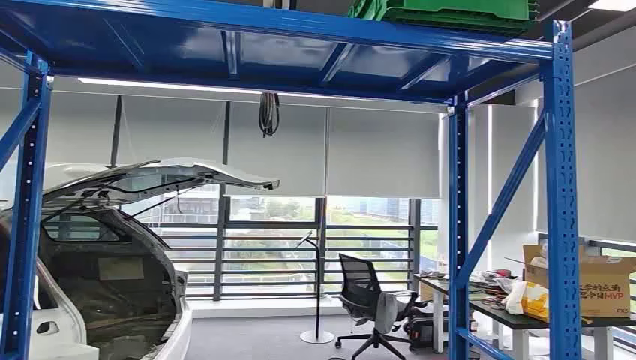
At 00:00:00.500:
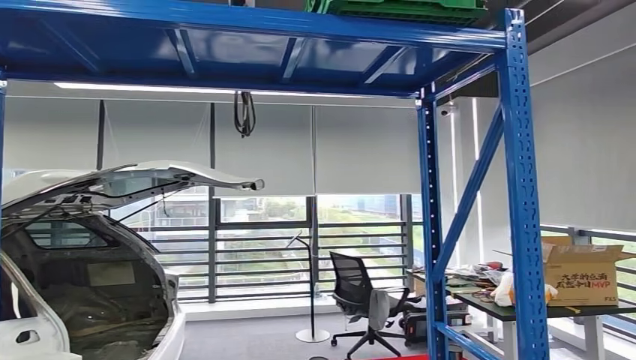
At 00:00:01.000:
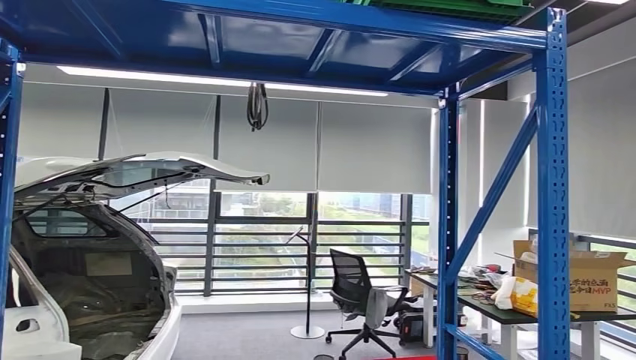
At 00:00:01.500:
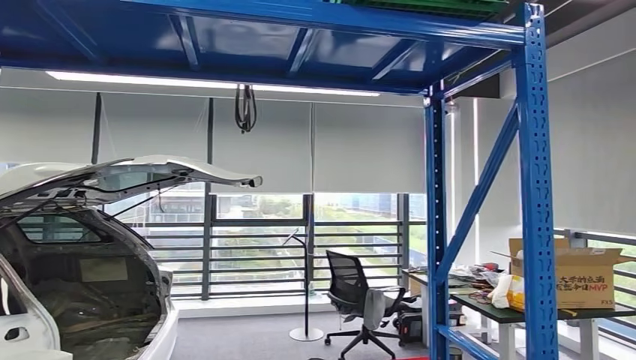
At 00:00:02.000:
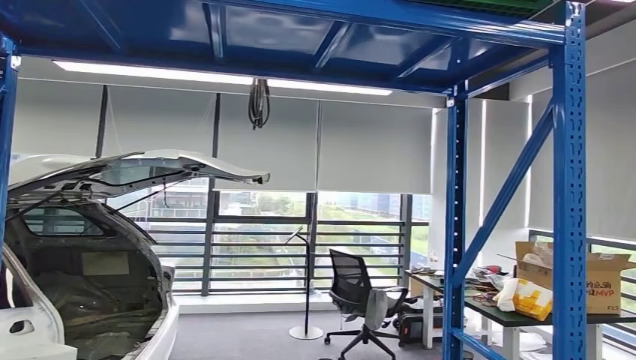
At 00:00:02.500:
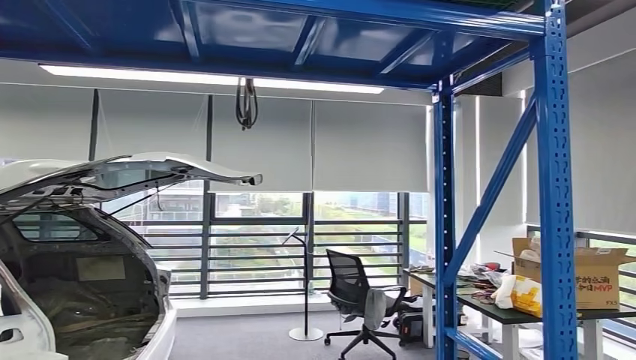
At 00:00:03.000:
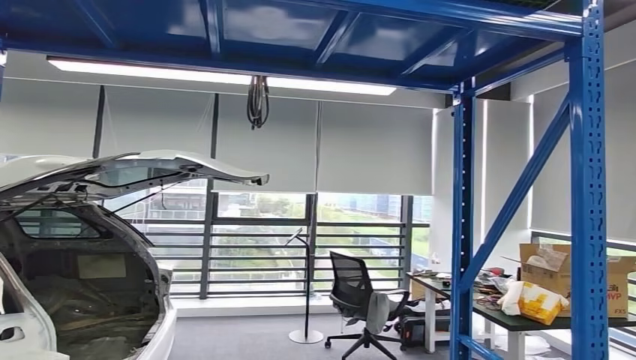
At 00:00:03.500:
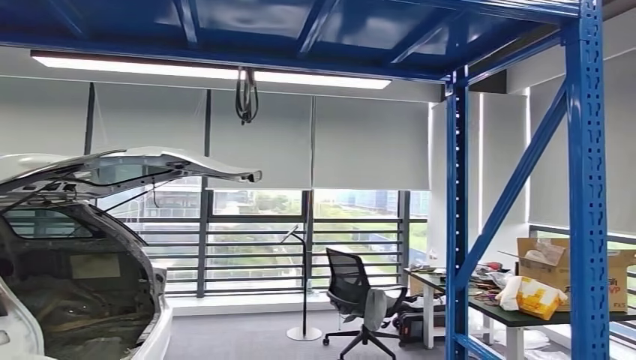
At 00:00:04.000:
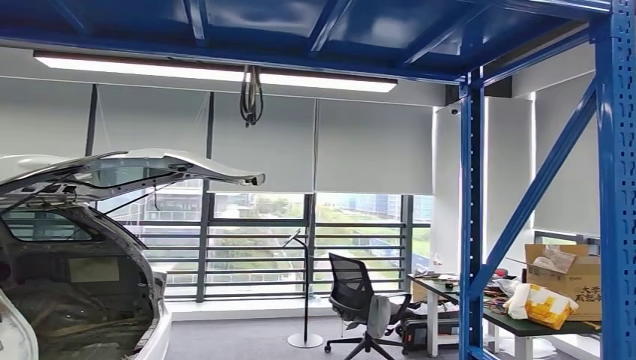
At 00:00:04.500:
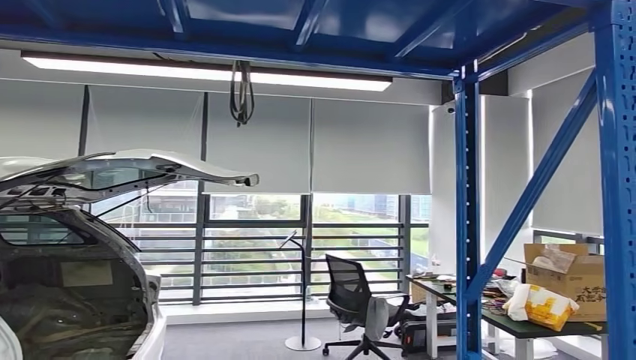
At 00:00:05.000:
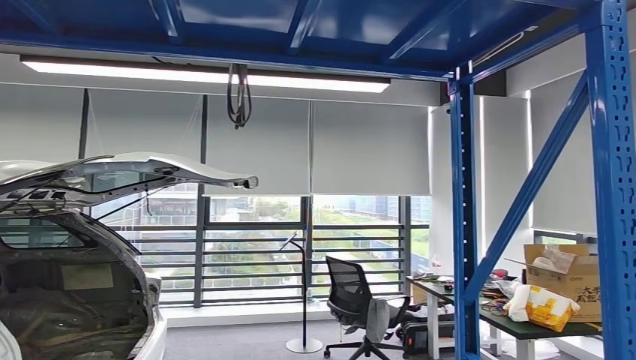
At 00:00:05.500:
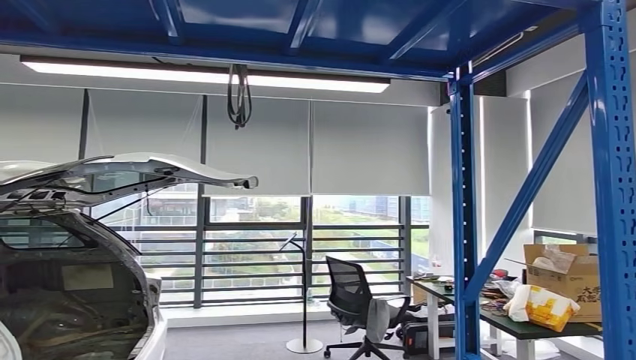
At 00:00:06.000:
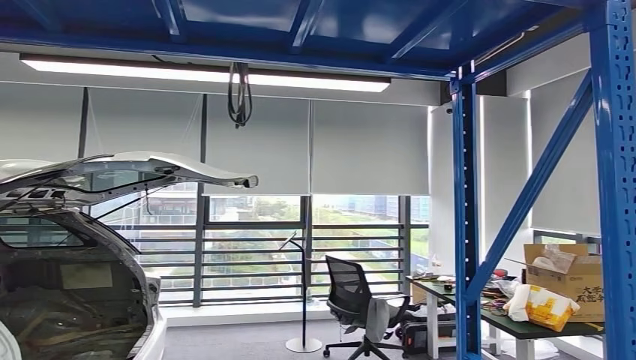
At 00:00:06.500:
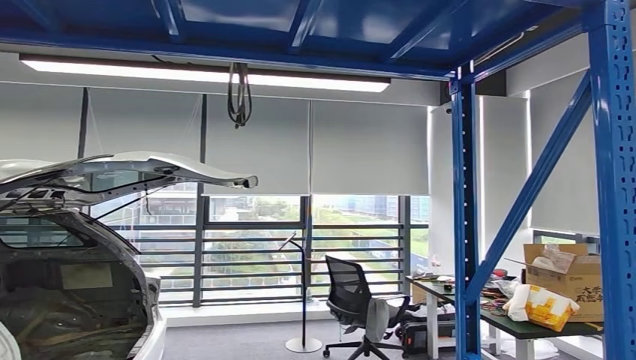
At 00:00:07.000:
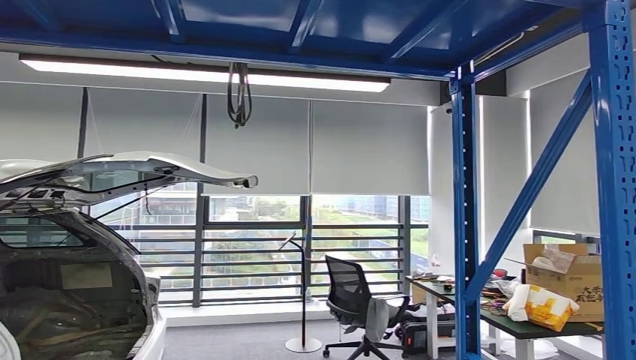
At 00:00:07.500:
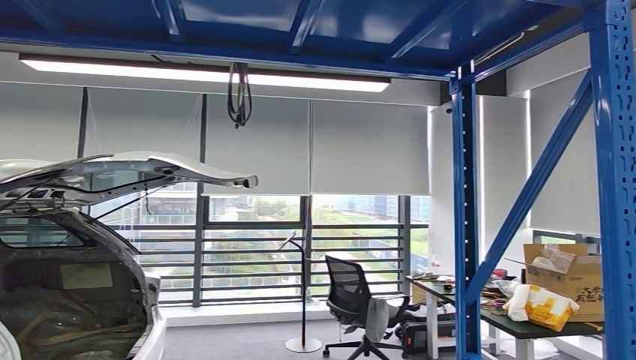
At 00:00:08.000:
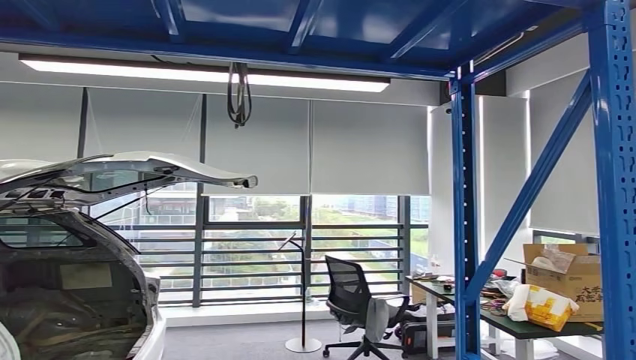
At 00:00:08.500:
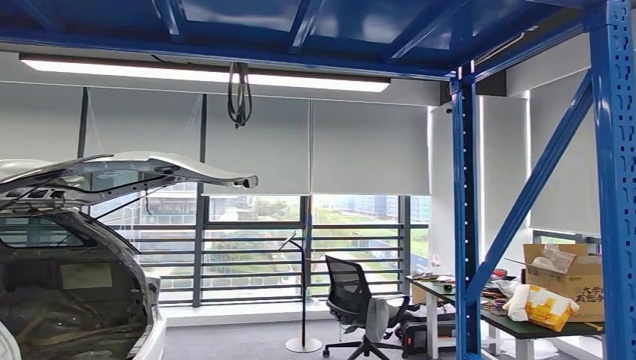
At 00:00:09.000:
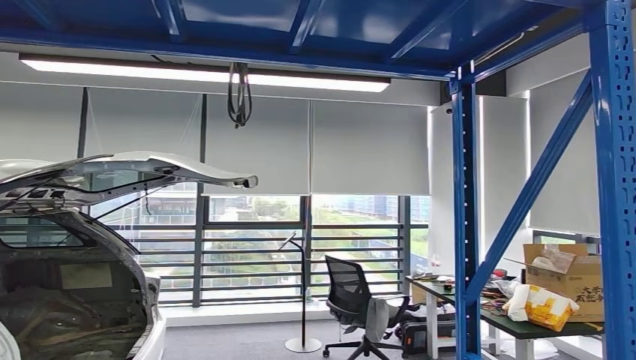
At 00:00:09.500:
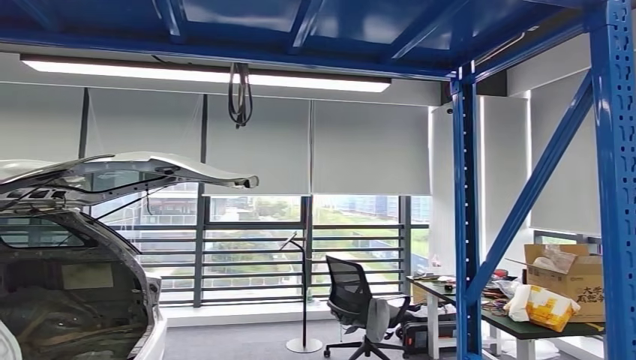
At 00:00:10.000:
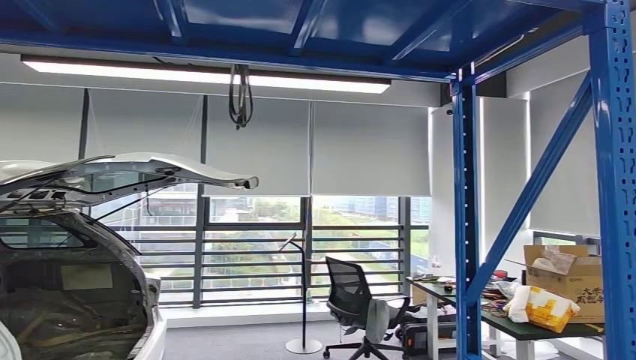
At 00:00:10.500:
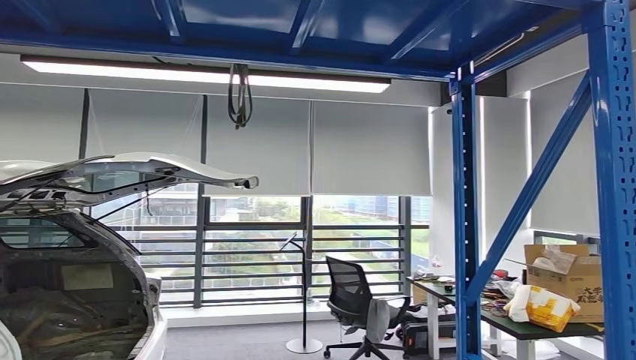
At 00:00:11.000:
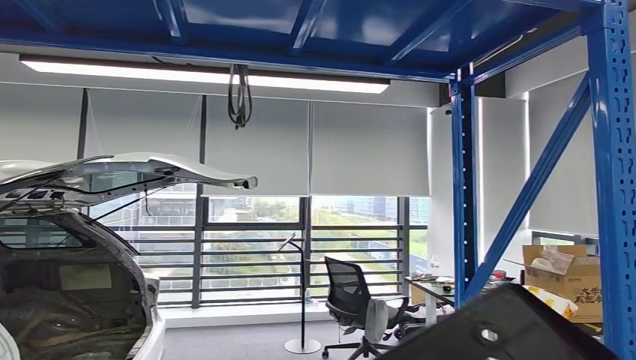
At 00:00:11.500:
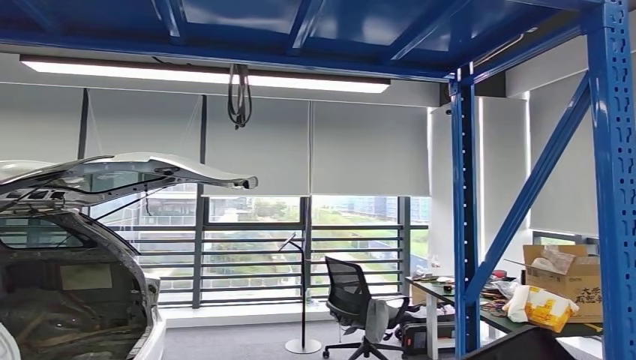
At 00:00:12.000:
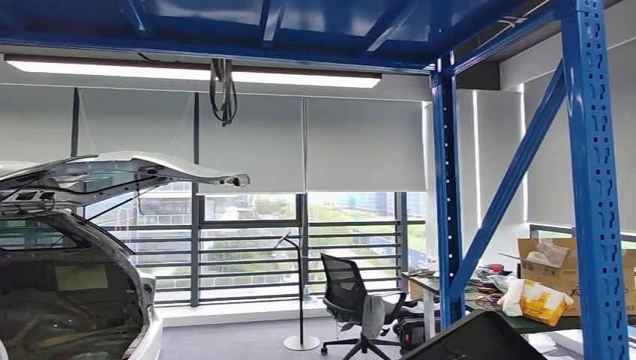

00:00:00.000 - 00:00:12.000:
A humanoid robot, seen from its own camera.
Step, 00:00:00.000 - 00:00:11.500: Pick up the small component from the shelf.
00:00:06.000 - 00:00:08.000: The right hand goes roughly 5 cm to the left.
00:00:08.000 - 00:00:10.000: There are only small adjustments of the hands.

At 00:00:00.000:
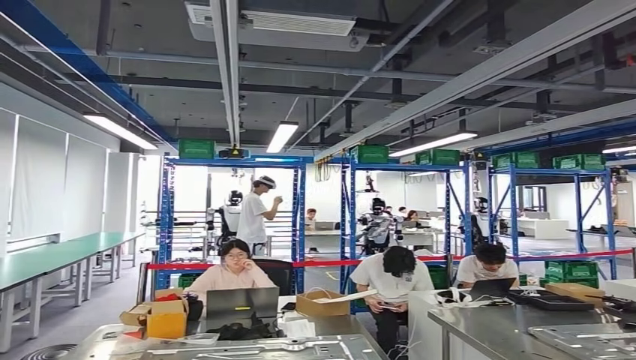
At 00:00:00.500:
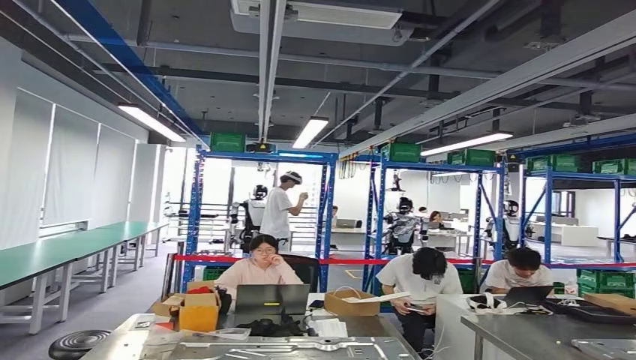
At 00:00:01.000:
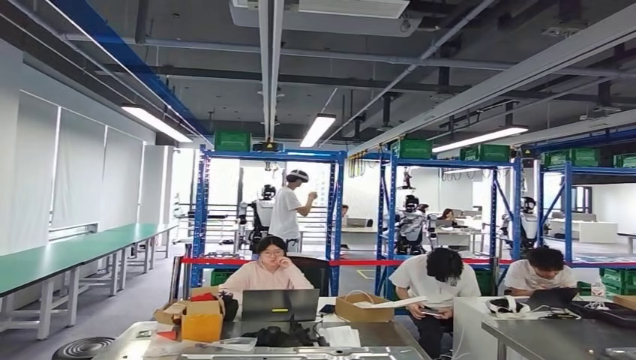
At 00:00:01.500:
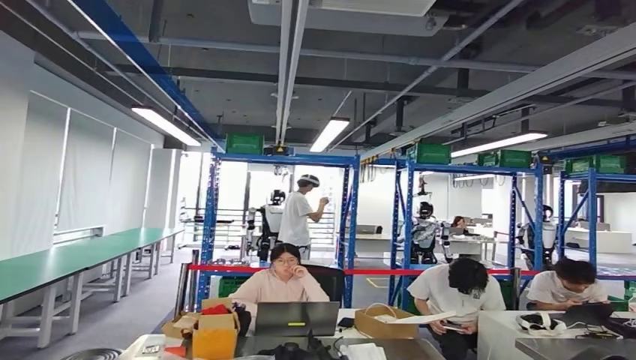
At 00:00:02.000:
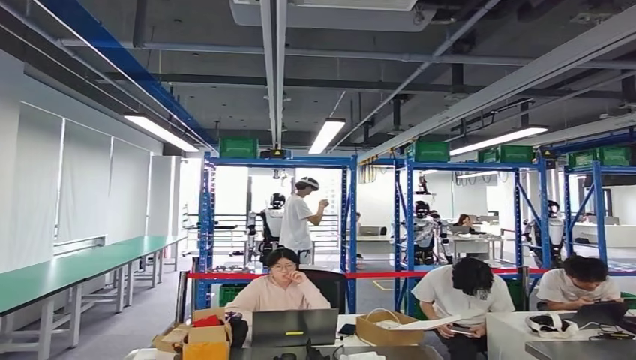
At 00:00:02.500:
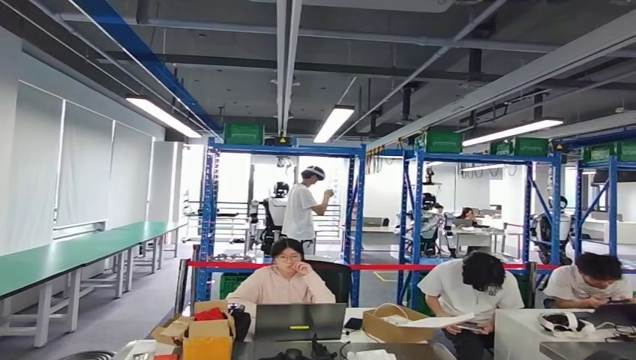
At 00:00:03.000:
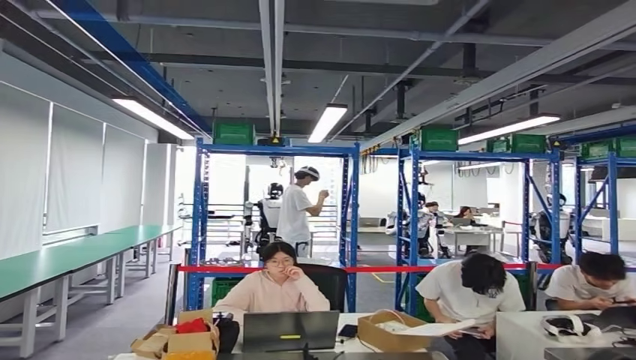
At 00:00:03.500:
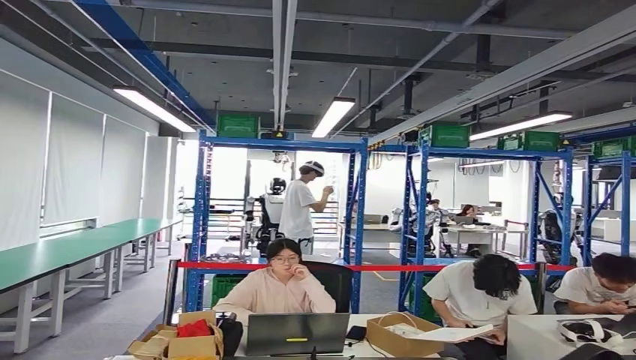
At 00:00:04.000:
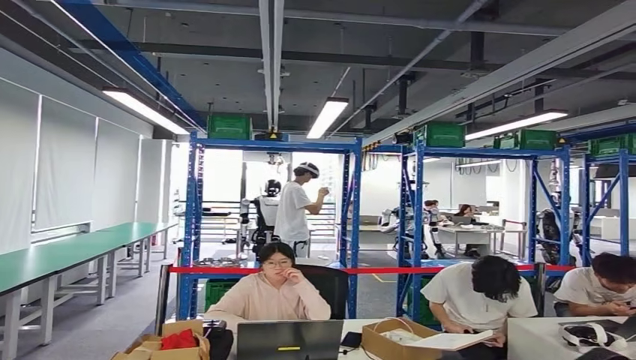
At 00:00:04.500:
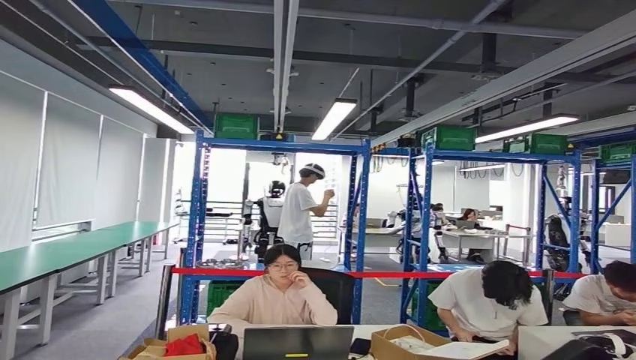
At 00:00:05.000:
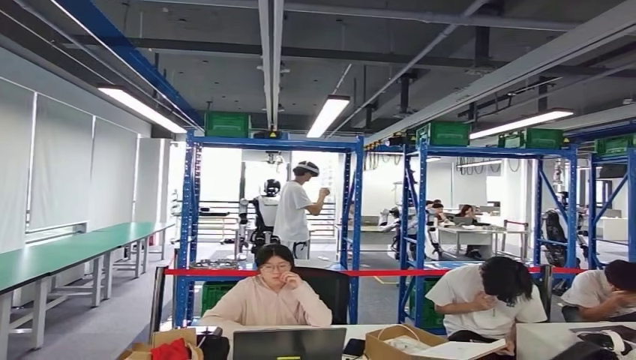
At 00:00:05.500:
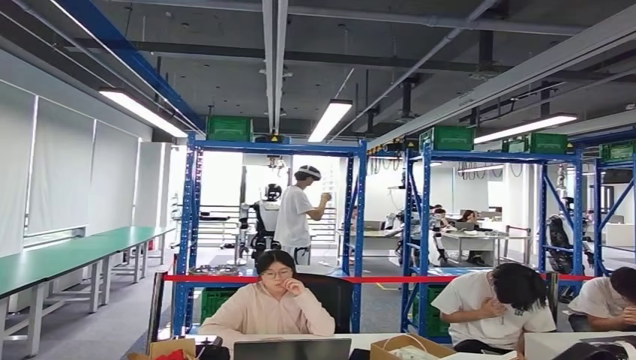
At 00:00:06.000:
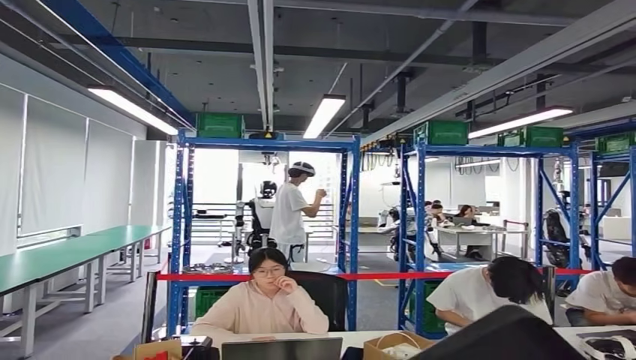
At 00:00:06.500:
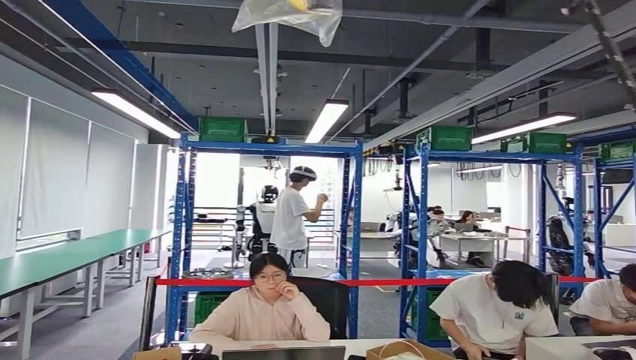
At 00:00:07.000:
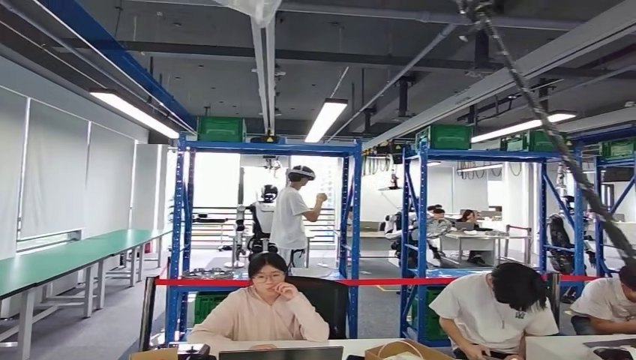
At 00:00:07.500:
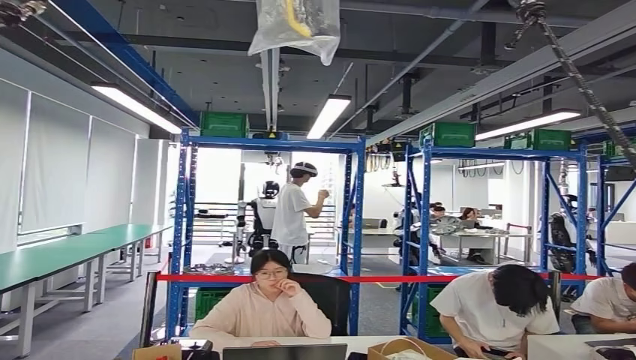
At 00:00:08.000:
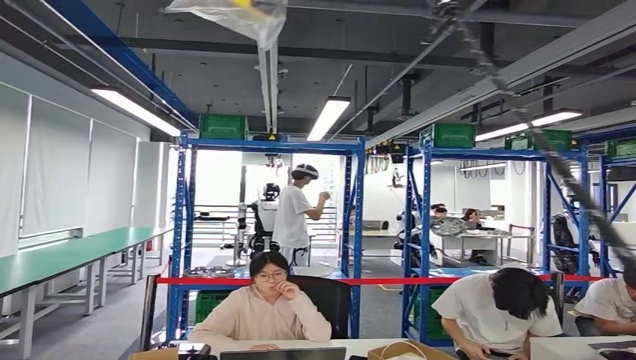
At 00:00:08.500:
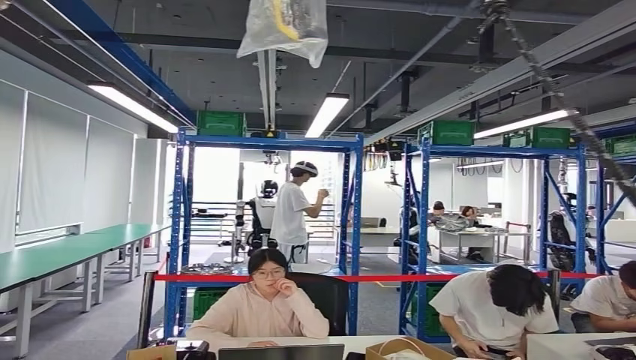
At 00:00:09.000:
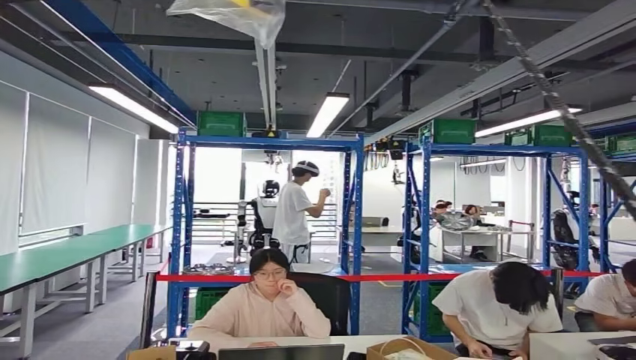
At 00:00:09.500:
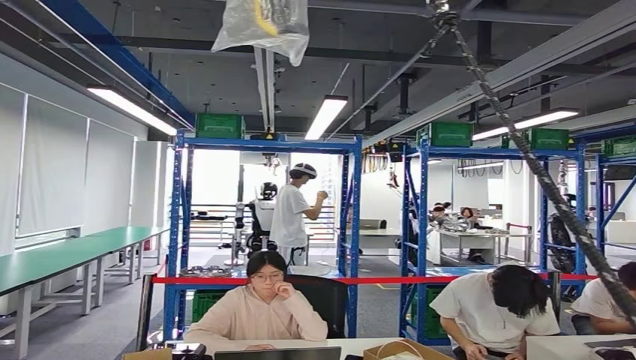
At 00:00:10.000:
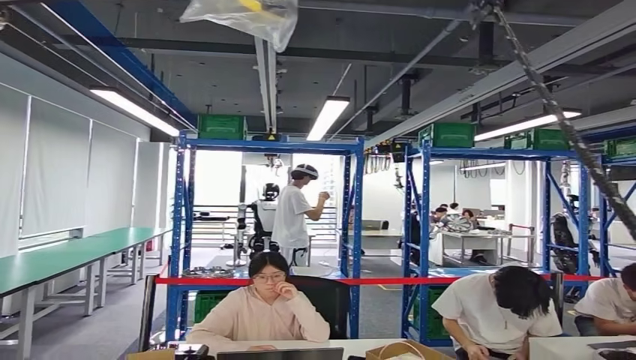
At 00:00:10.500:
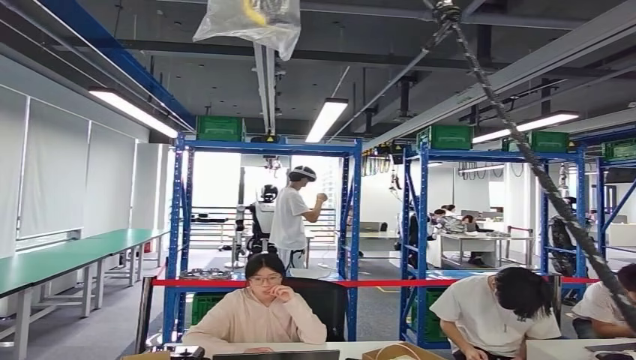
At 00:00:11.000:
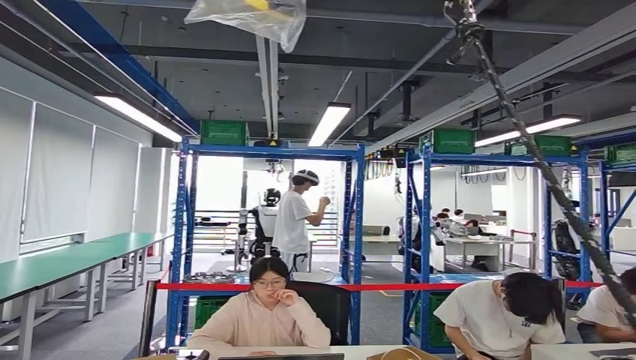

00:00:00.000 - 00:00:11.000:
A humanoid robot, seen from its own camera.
Step, 00:00:00.000 - 00:00:05.000: Move the small component to the workbench.
Step, 00:00:05.500 - 00:00:10.000: Insert the small component into the corresponding slot on the workbench.
